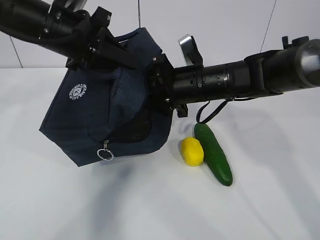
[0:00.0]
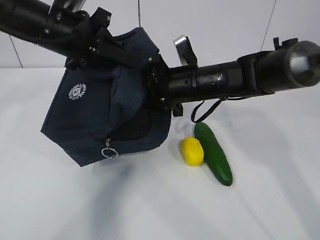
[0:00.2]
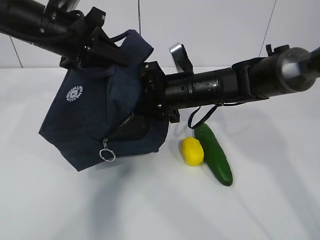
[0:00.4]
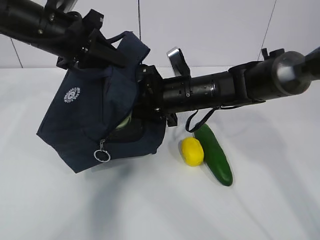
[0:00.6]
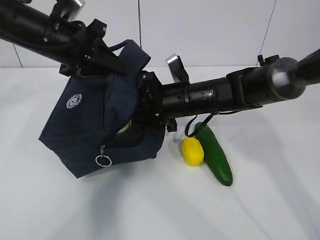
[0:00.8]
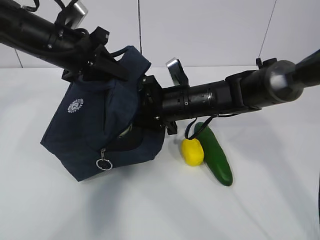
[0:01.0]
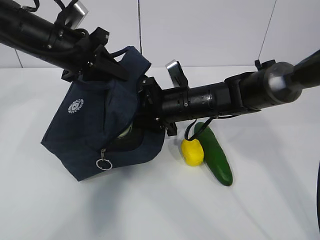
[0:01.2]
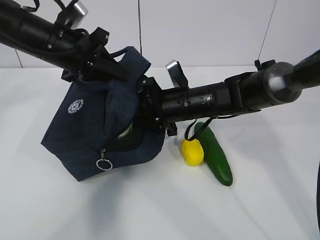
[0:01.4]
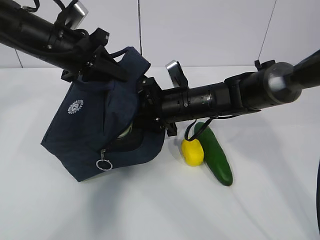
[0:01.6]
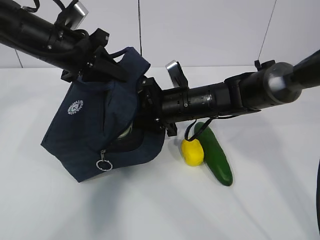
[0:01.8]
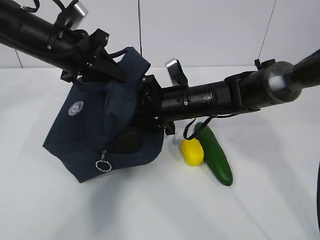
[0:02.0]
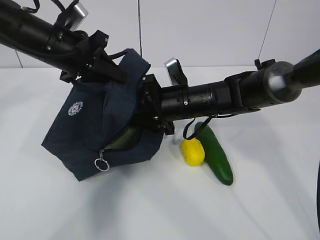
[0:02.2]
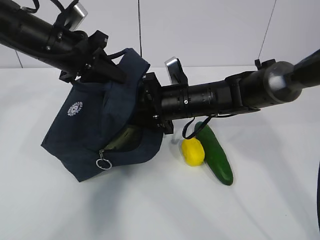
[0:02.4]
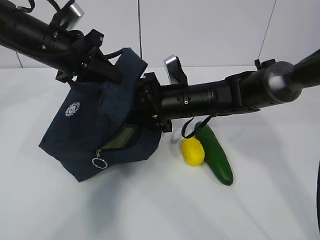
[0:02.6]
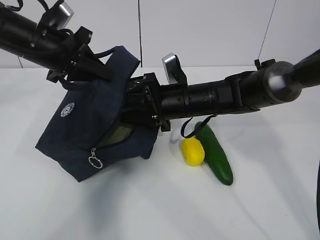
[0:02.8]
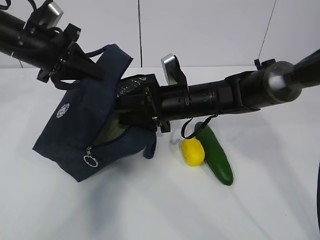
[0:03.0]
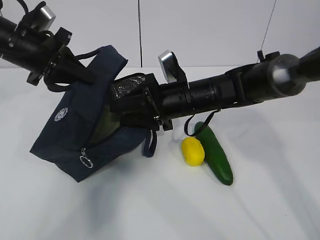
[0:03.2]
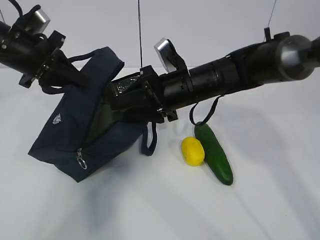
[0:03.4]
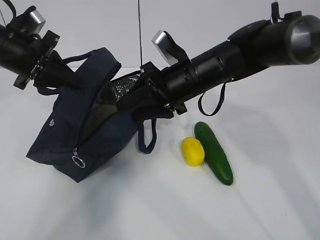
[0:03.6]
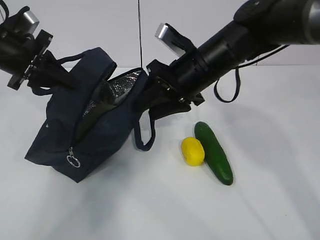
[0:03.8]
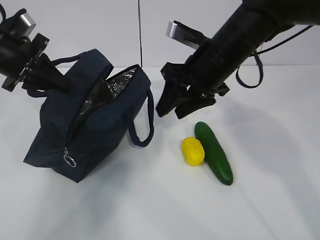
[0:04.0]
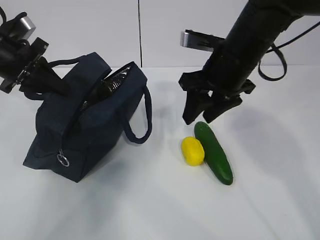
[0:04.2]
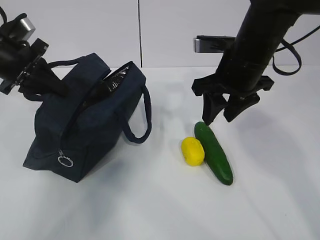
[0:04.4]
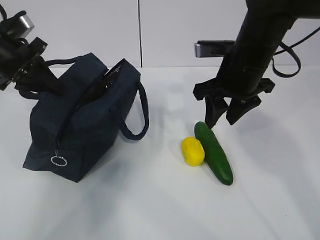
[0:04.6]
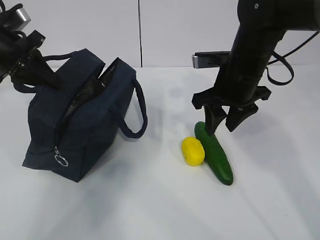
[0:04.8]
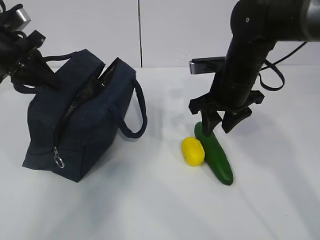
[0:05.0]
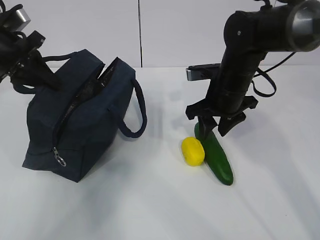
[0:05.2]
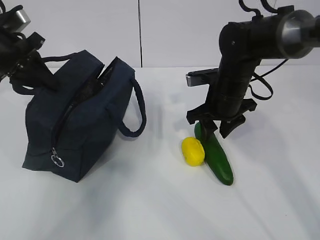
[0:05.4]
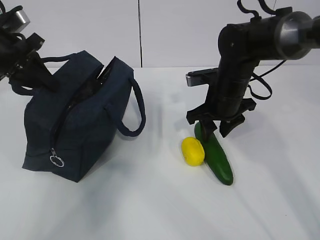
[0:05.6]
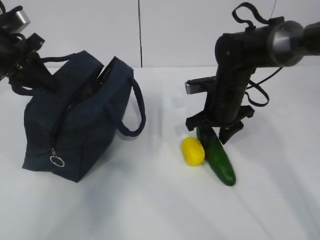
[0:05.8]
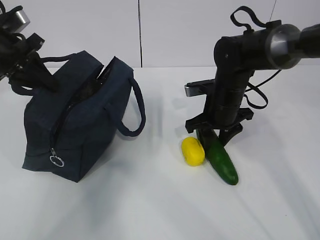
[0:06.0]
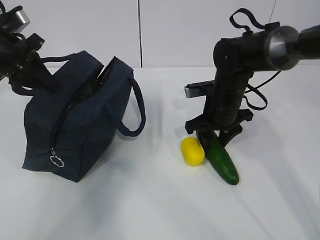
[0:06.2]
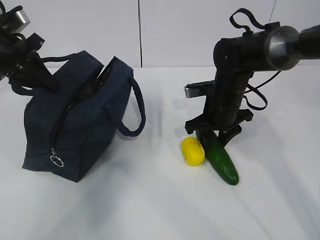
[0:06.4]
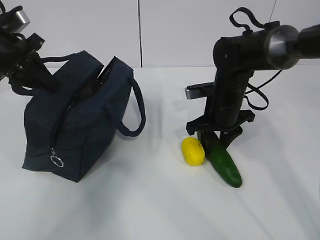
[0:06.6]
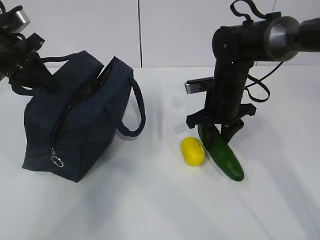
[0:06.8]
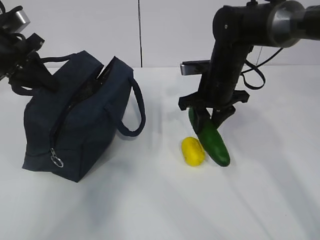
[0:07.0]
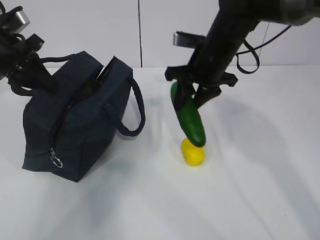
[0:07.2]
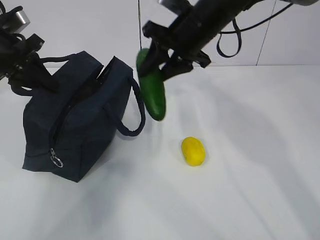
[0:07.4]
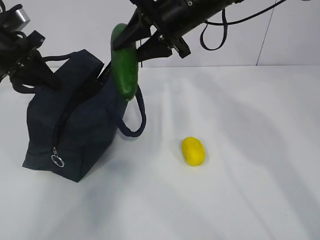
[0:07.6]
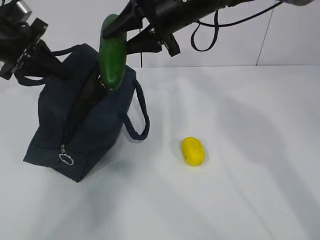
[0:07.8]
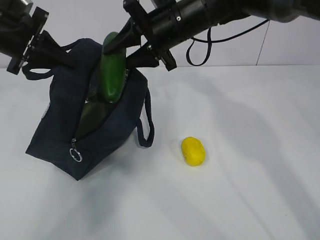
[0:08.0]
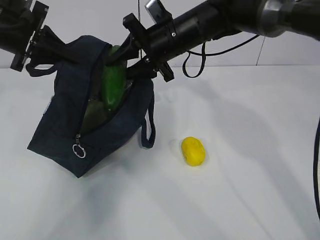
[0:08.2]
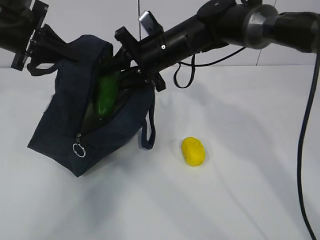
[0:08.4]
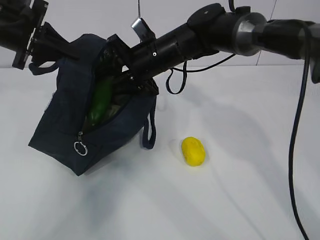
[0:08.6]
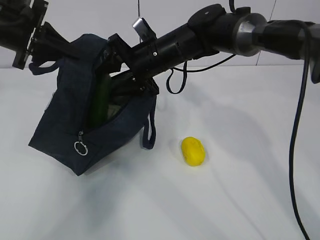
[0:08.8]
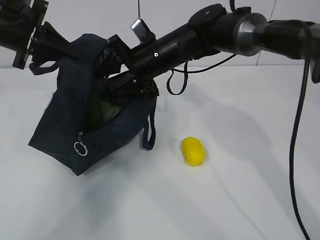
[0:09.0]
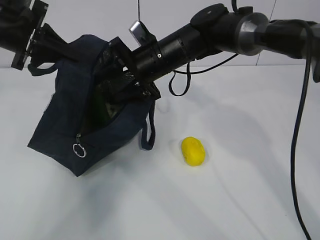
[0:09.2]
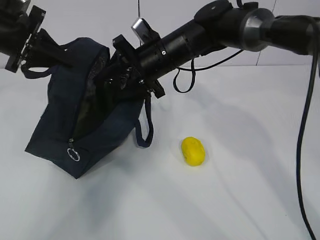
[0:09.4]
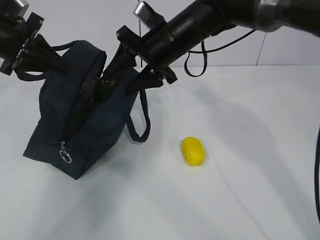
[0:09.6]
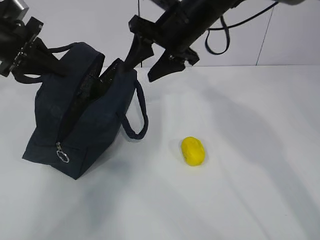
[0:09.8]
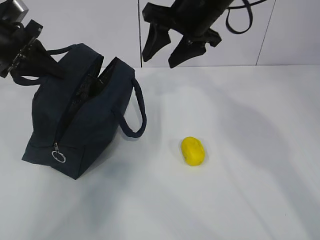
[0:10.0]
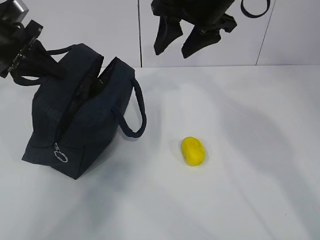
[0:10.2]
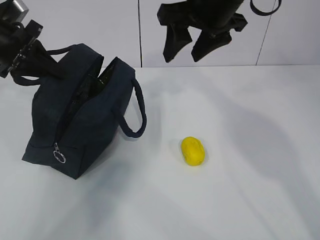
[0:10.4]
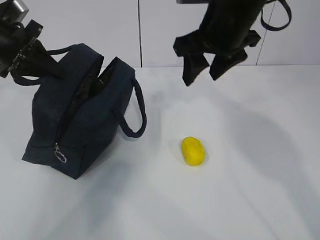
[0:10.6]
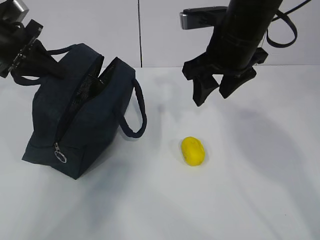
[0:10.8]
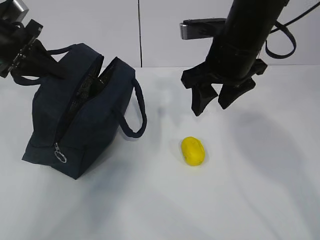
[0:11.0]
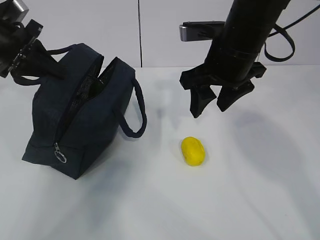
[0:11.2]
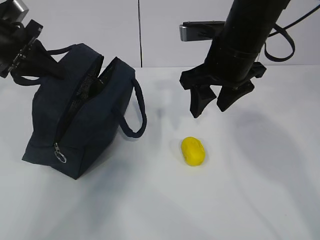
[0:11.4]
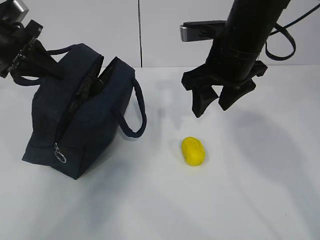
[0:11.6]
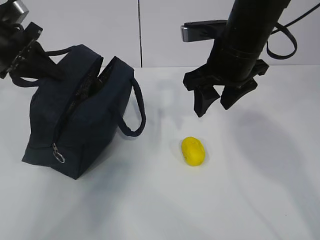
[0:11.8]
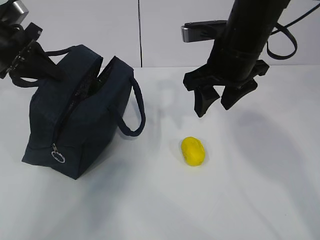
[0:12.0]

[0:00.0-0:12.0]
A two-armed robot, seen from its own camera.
Step, 0:01.4 to 0:03.2: Place it into the bag with your right hand.
Step, 0:03.6 to 0:07.8: Grab the lemon with your right hand.
0:00.0 to 0:01.6: The right gripper travels downward by roughly 5 cm.
0:01.6 to 0:03.0: The grippers move only a little.
0:03.0 to 0:04.4: The right gripper moves upward and to the right, some 10 cm. The left gripper is displaced to the left by some 5 cm.
0:04.4 to 0:06.0: The right gripper shifts about 10 cm downward.
0:06.0 to 0:07.6: The right gripper shifts some 20 cm upward and to the left.
0:07.6 to 0:09.0: The right gripper is displaced downward by roughly 10 cm.
0:09.0 to 0:10.4: The right gripper shifts roughly 15 cm upward, to the right and backward.
0:10.4 to 0:12.0: The right gripper heads downward, covering some 5 cm.

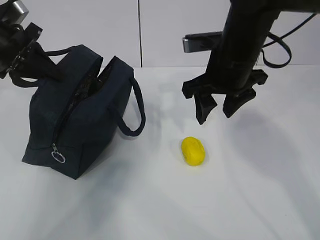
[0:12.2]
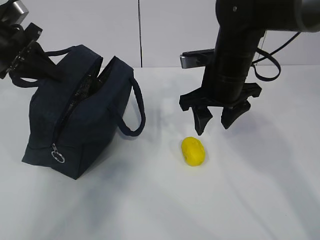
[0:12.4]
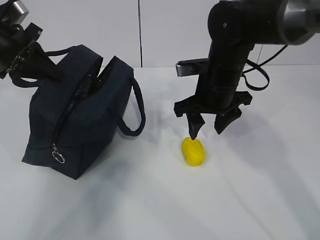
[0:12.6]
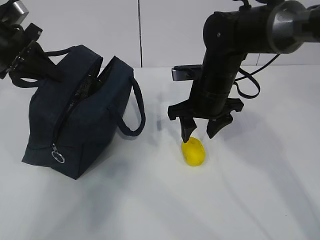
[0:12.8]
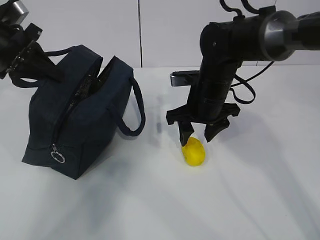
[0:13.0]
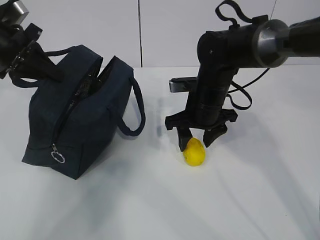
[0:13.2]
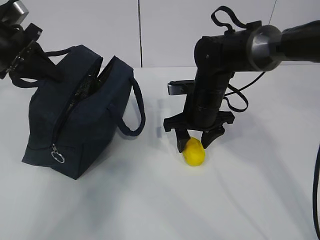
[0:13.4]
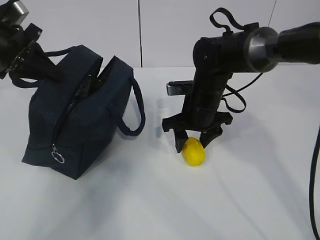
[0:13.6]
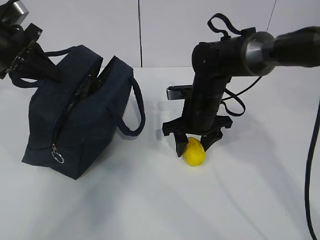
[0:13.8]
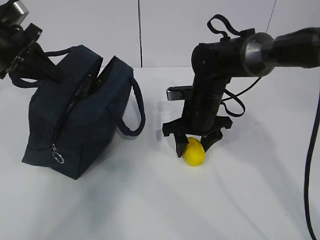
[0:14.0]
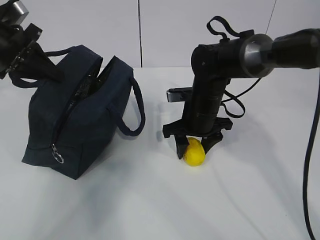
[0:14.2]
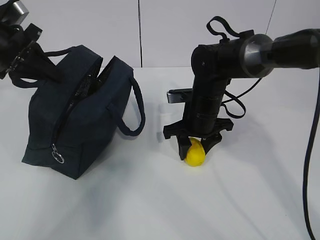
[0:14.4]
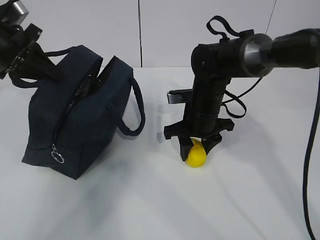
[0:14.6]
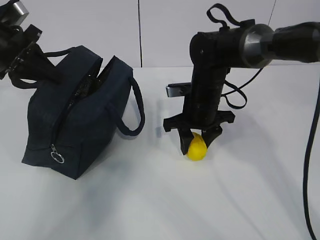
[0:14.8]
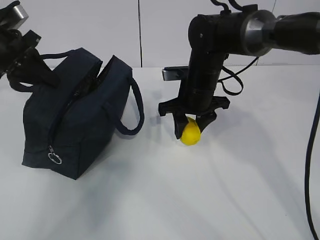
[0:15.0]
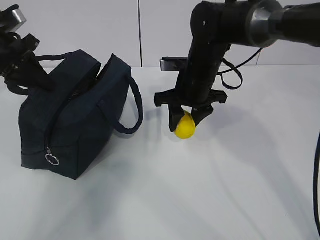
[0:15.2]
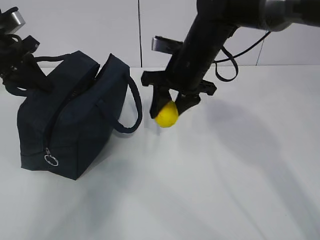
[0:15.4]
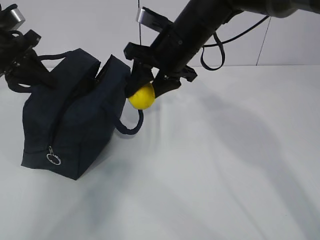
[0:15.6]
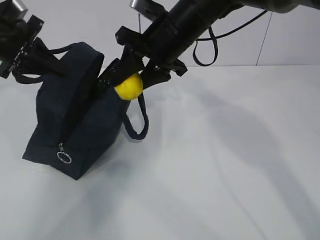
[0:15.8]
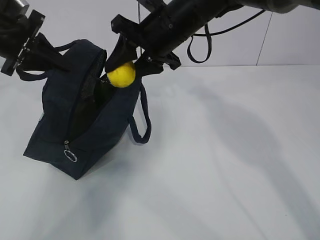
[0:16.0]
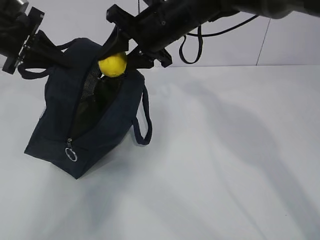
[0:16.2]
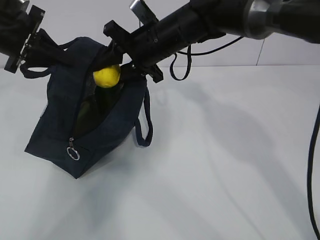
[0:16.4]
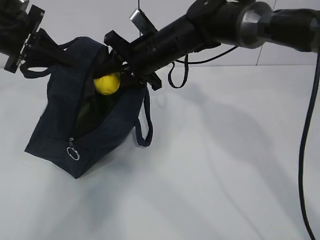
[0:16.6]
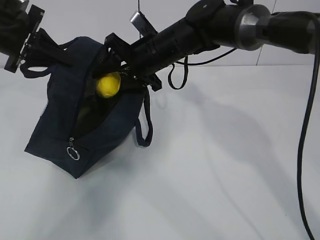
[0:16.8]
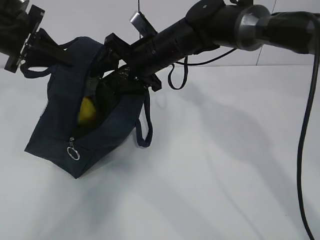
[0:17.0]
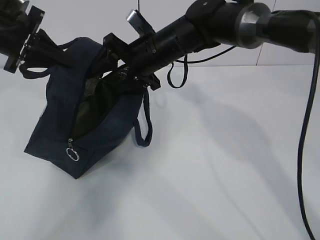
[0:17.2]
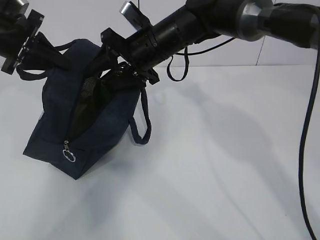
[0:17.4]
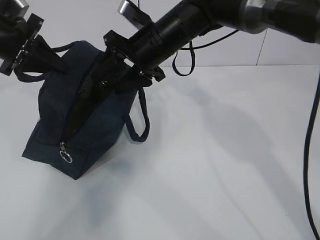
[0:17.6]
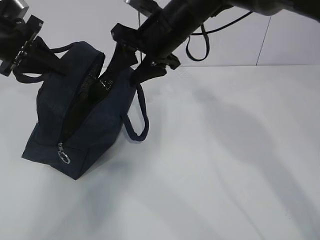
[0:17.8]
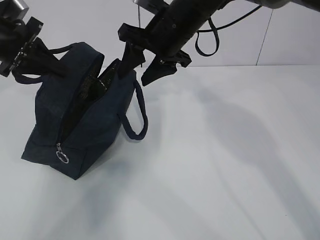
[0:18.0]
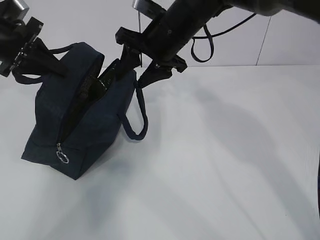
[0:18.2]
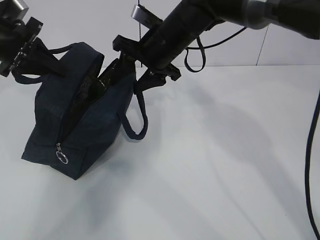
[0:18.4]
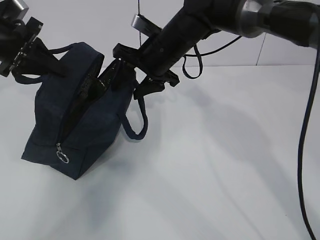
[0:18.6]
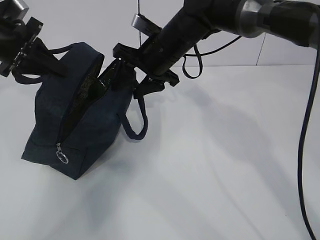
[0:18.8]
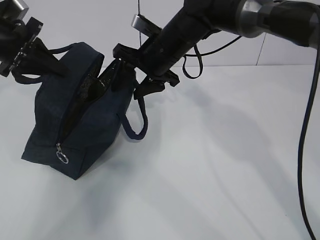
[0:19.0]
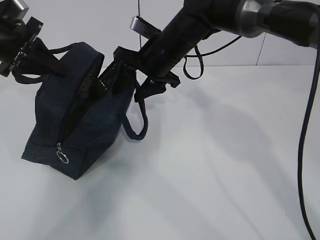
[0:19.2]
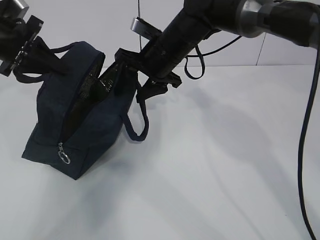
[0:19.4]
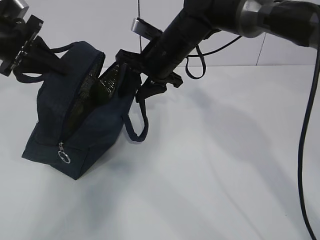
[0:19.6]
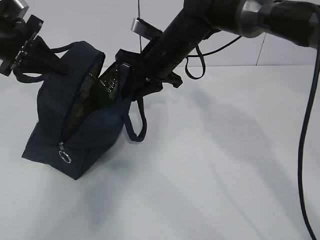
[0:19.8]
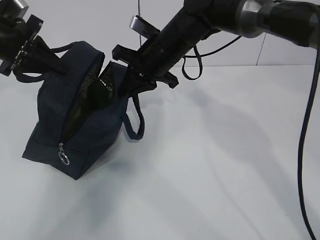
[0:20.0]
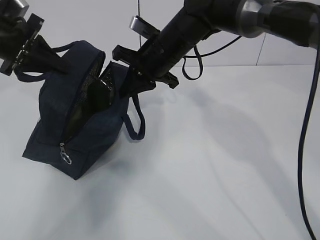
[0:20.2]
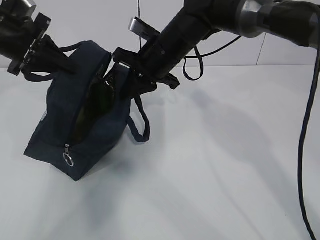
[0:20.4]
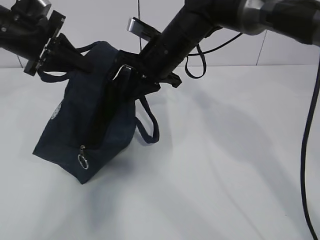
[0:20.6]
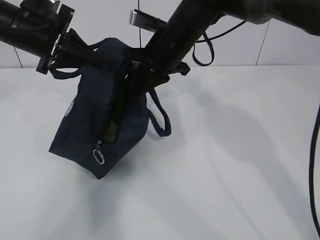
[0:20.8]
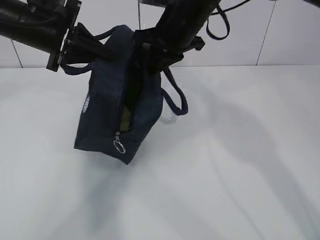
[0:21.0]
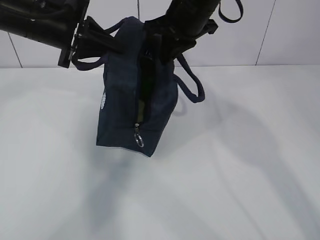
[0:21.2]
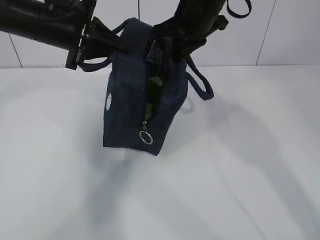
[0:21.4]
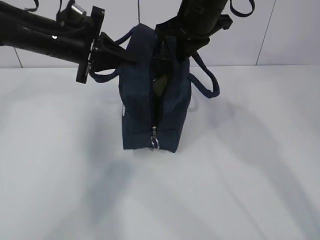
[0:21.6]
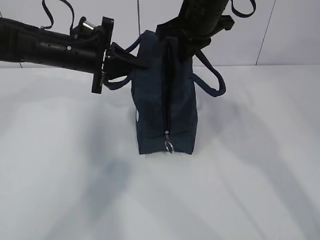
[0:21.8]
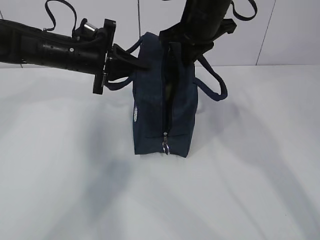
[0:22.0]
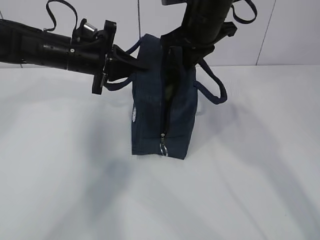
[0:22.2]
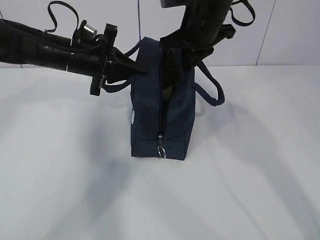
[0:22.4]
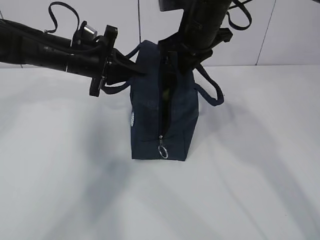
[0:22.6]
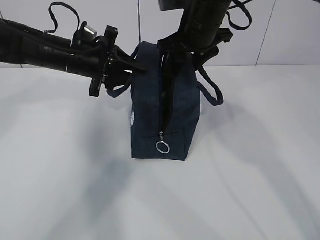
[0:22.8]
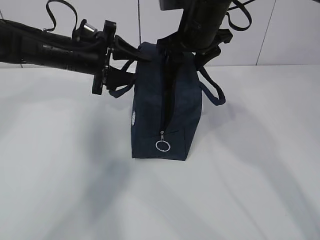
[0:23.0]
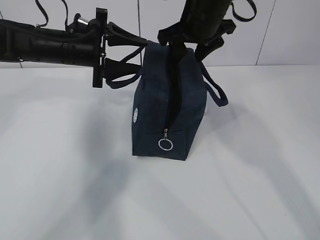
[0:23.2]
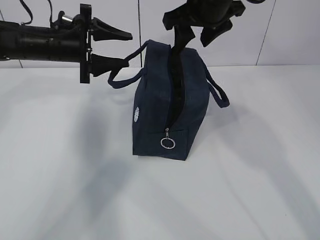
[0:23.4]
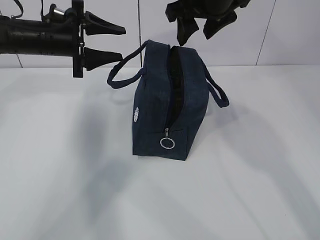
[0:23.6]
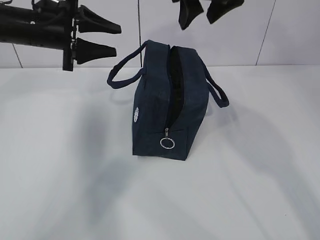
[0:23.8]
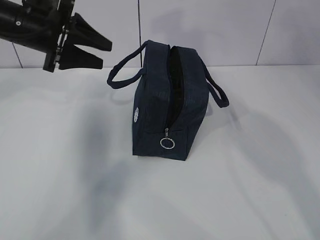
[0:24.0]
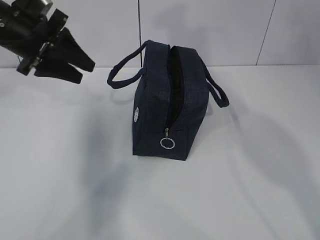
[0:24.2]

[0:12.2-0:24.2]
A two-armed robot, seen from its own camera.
Step, 0:12.8 to 0:14.8: Move the lunch bag to the right.
0:12.2 to 0:13.8: The right gripper is displaced downward by about 10 cm.
0:13.8 to 0:15.2: The right gripper shifts roughly 5 cm upward.
0:15.2 to 0:16.6: The right gripper travels to the left by some 5 cm.
0:18.2 to 0:19.8: The right gripper closes.
0:19.8 to 0:21.2: The left gripper heads to the right, covering roughly 10 cm; the right gripper shifts some 10 cm upward, and closes up.
0:21.2 to 0:22.6: The left gripper shifts about 10 cm downward.
0:22.6 to 0:24.2: The left gripper shifts approximately 10 cm upward and to the left, and opens up; the right gripper is displaced upward and backward by some 20 cm, and opens its fingers.
